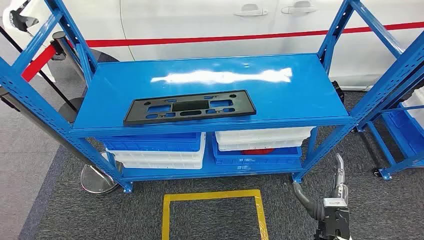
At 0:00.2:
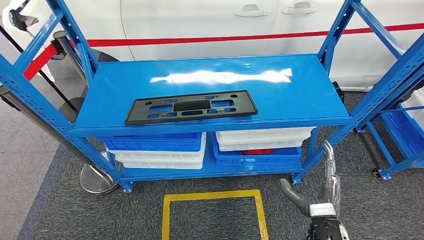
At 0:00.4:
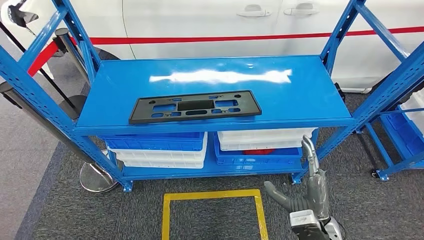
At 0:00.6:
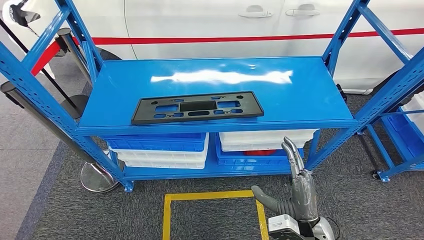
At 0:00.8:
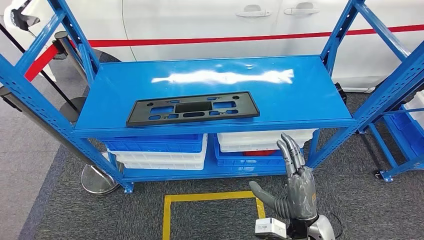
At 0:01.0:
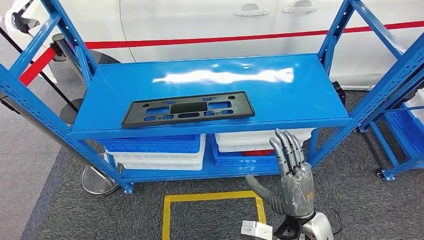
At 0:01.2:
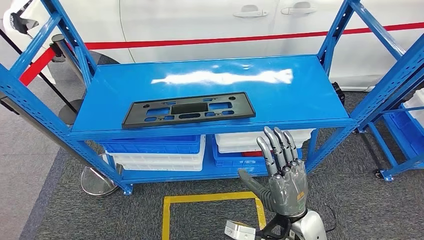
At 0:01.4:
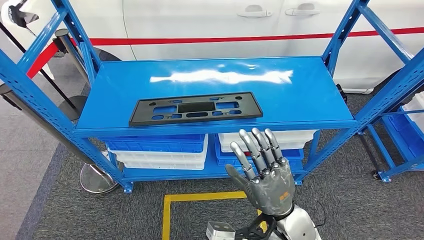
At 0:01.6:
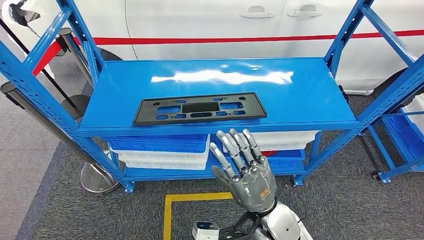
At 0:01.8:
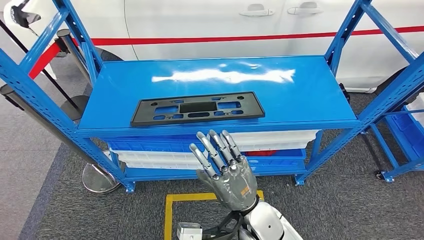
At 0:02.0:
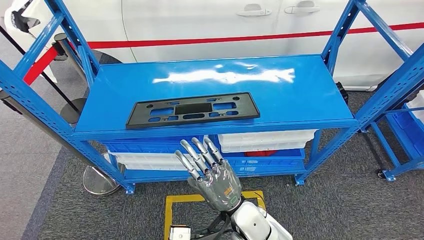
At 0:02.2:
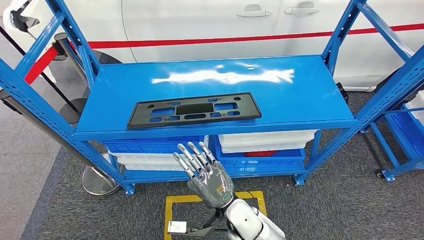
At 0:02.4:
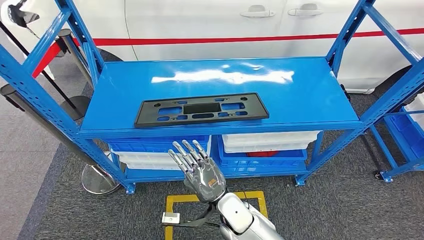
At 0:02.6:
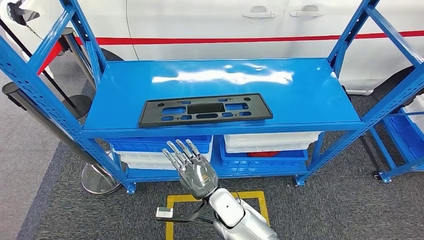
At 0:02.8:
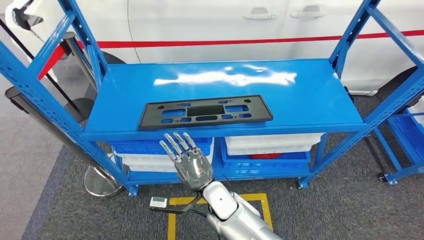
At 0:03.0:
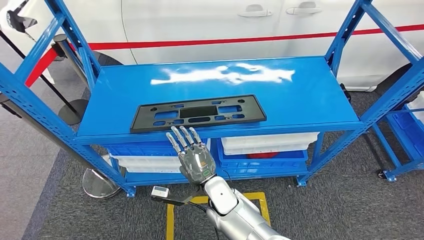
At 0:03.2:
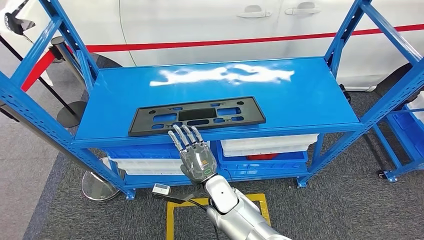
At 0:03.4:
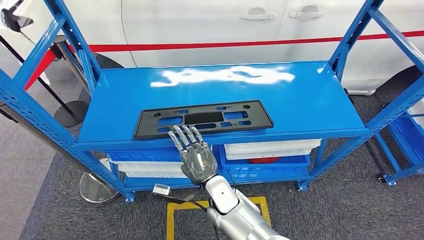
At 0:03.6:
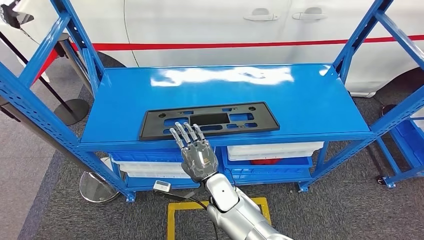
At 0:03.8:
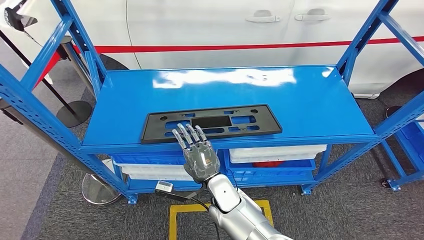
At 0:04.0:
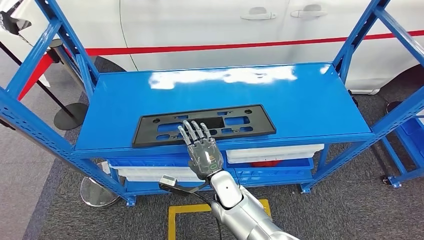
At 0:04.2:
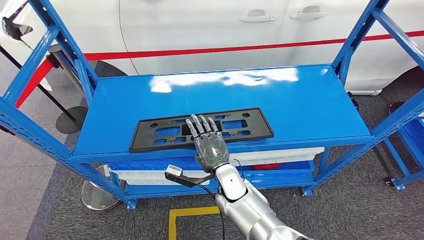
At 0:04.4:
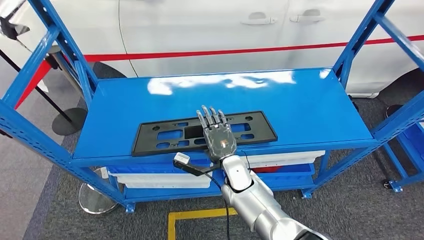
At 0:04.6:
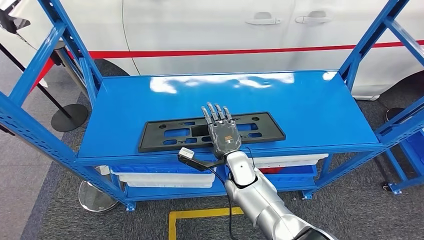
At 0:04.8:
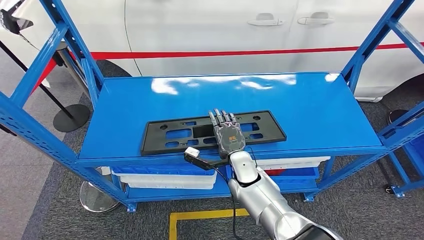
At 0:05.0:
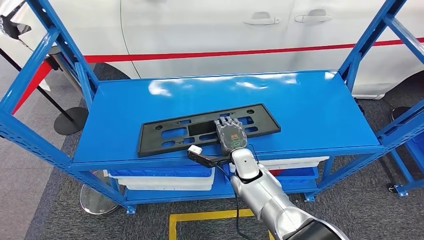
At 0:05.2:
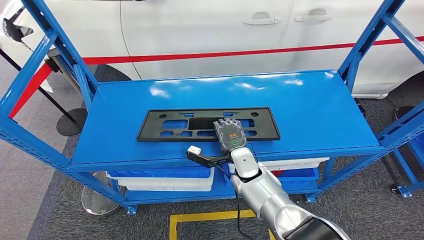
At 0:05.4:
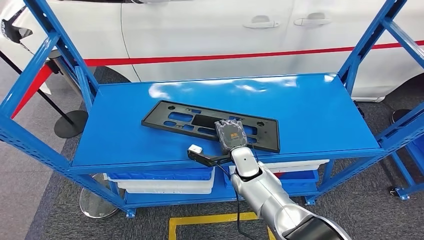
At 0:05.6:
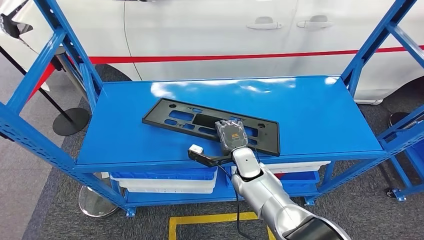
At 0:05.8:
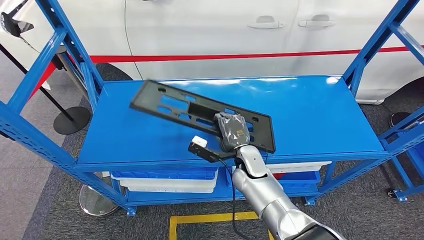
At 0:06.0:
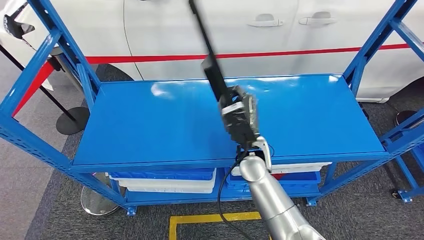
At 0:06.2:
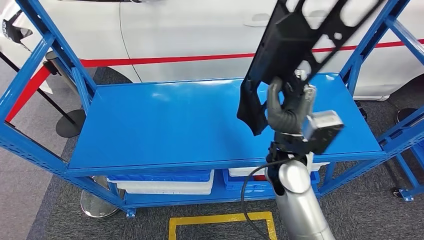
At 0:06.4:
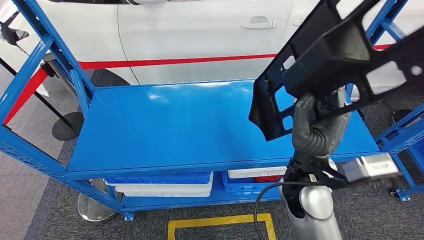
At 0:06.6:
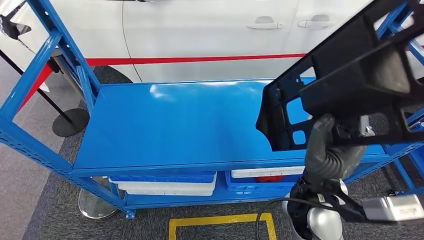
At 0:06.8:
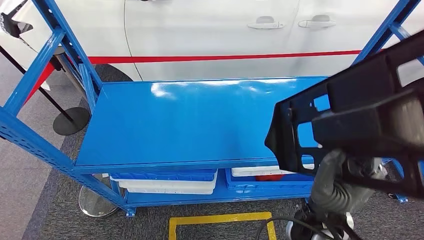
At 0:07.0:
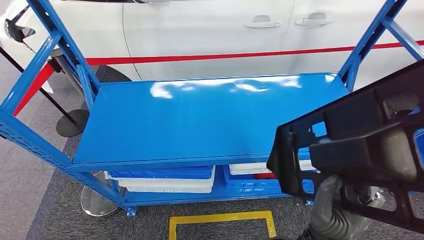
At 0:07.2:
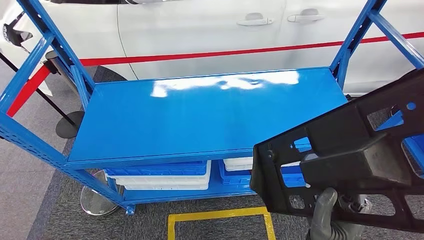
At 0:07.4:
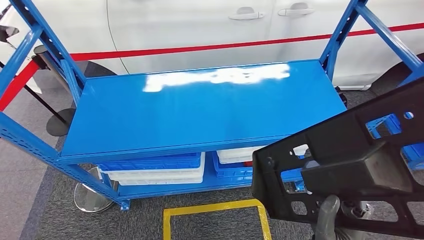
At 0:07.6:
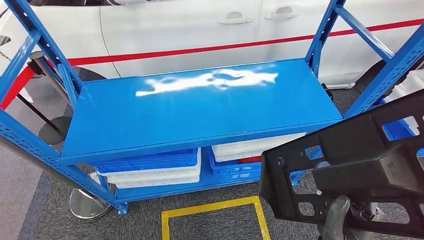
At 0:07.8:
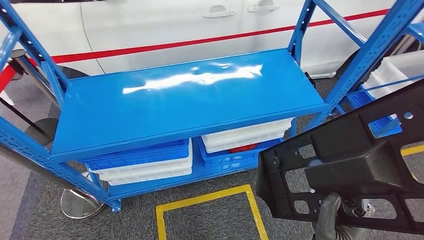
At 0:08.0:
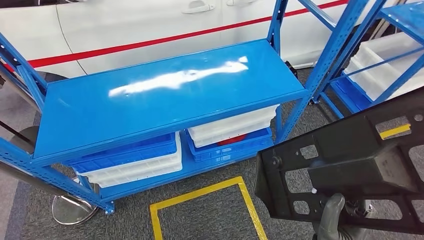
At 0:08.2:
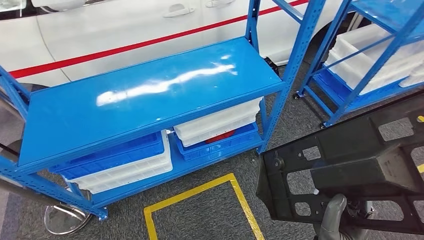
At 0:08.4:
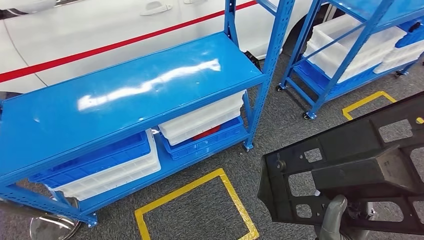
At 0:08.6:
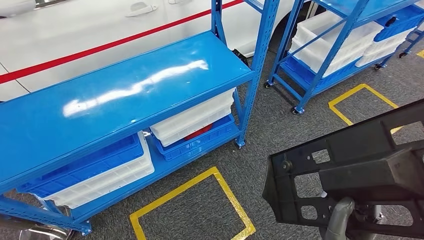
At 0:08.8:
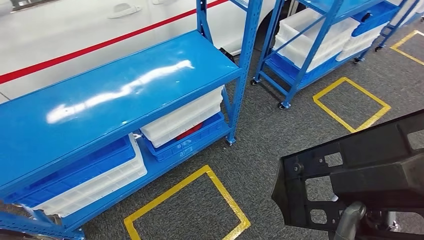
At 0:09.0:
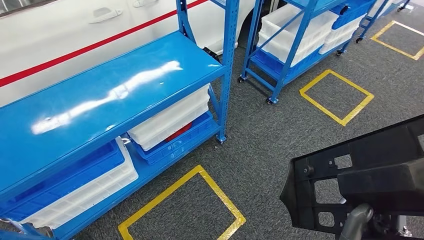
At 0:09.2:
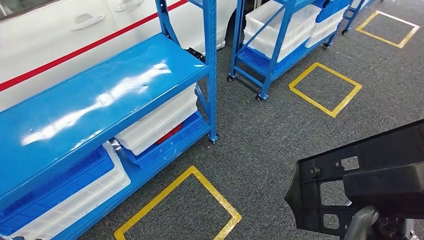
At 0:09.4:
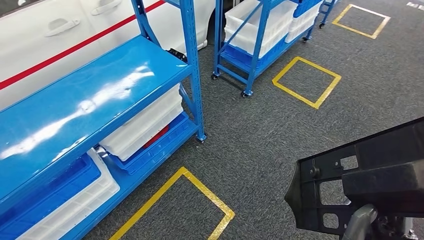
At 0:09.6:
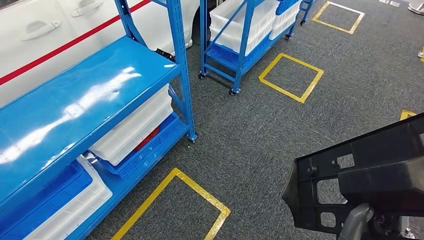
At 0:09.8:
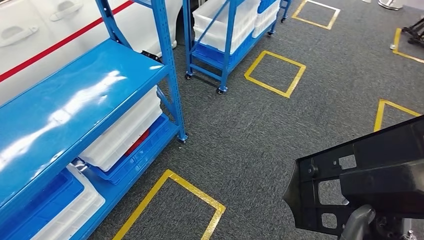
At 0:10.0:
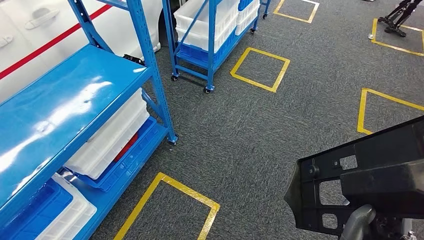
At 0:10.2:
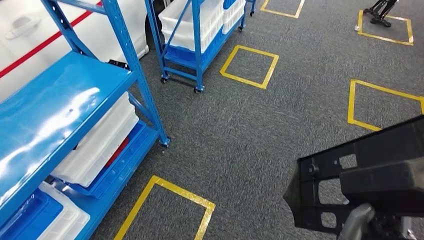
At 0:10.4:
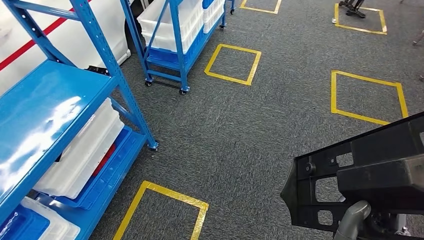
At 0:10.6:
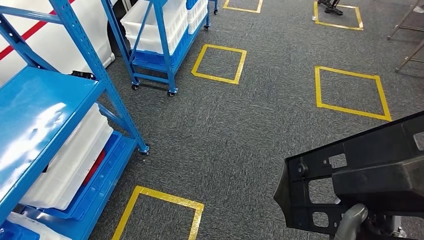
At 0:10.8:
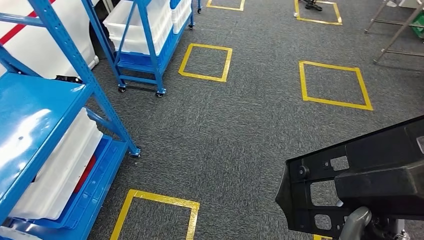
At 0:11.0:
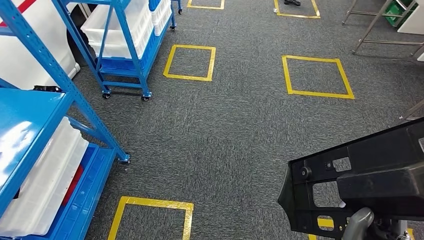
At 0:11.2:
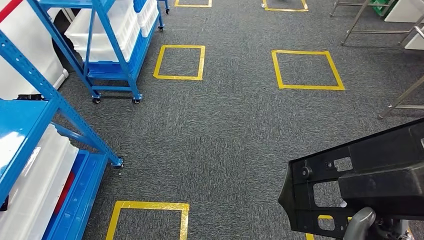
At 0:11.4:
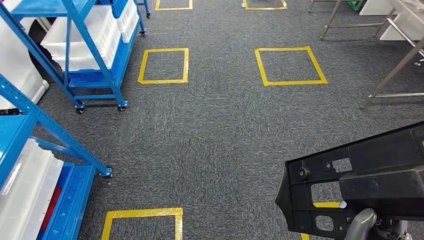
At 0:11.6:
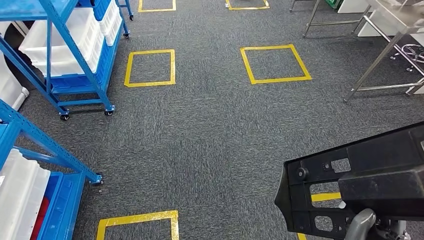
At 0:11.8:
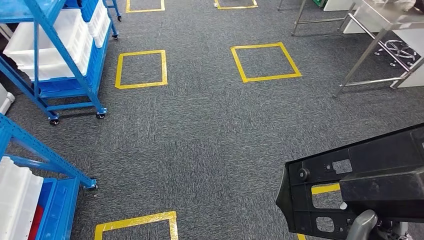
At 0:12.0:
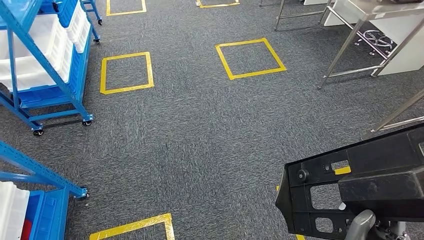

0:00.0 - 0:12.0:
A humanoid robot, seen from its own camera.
Step, 0:00.0 - 0:07.4: Pick up the large material from the shelf.

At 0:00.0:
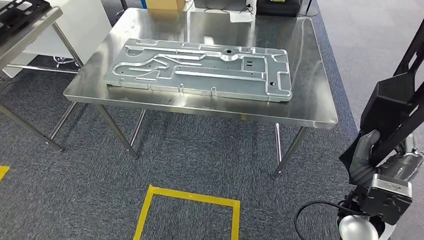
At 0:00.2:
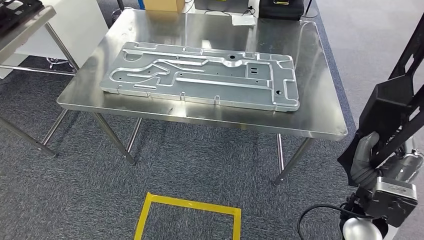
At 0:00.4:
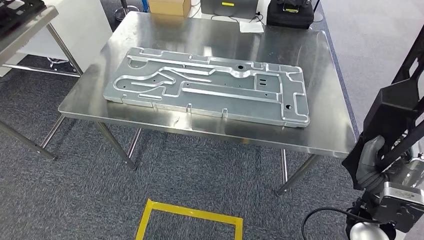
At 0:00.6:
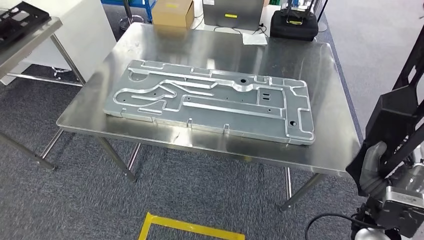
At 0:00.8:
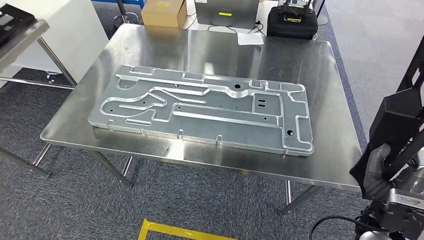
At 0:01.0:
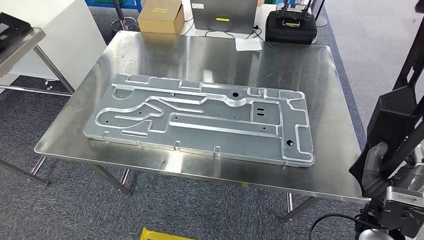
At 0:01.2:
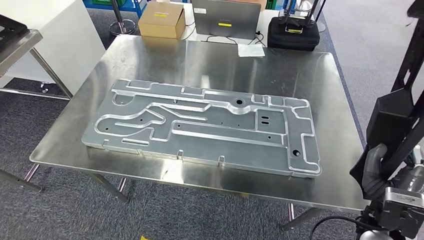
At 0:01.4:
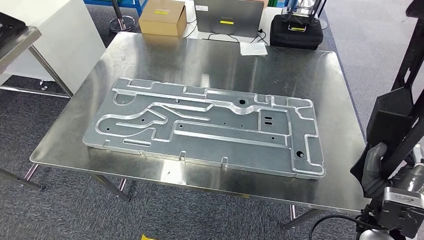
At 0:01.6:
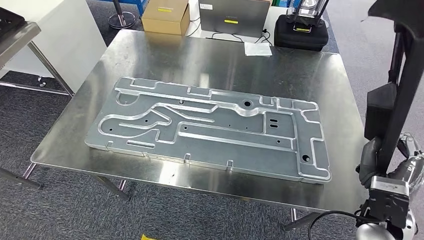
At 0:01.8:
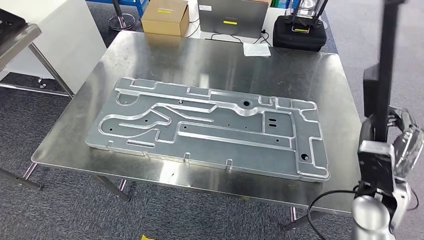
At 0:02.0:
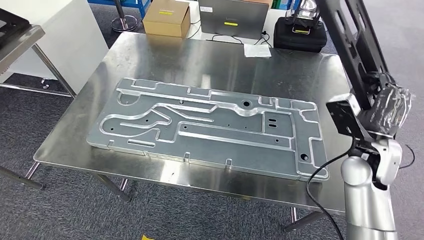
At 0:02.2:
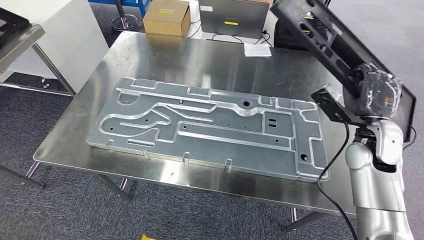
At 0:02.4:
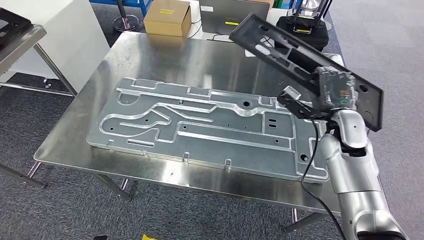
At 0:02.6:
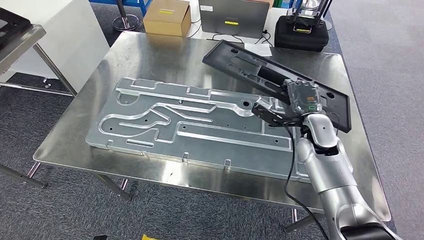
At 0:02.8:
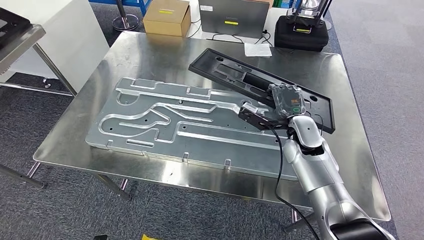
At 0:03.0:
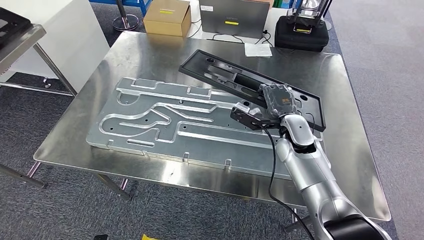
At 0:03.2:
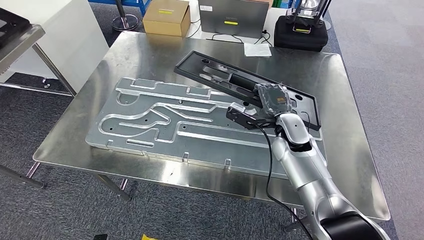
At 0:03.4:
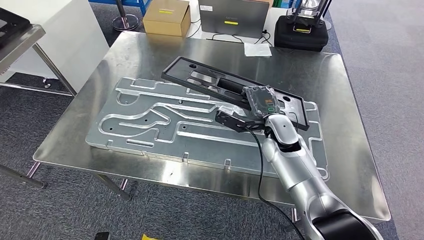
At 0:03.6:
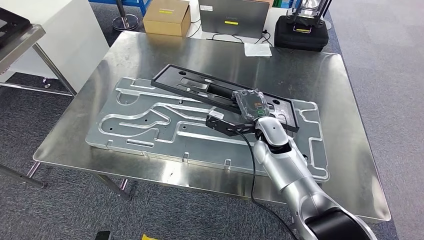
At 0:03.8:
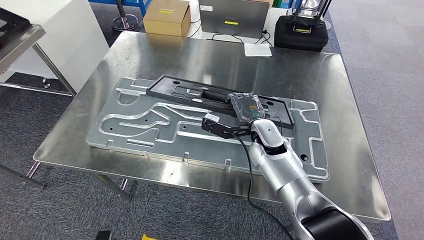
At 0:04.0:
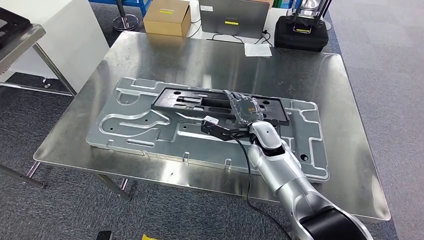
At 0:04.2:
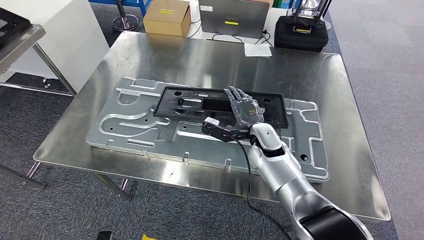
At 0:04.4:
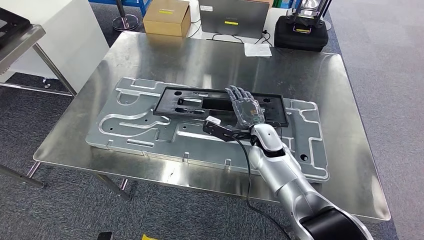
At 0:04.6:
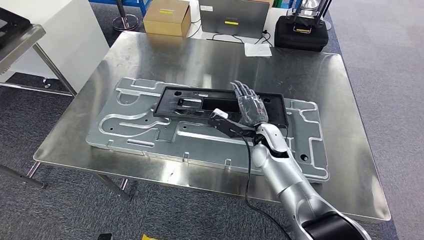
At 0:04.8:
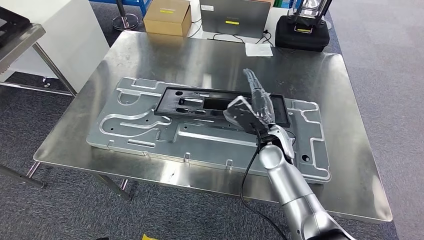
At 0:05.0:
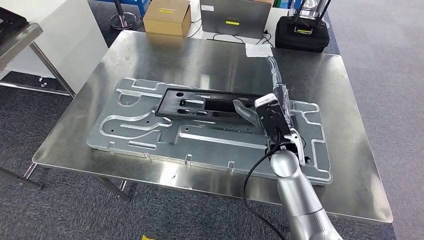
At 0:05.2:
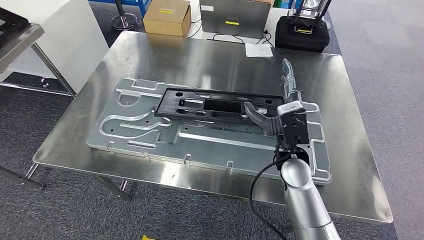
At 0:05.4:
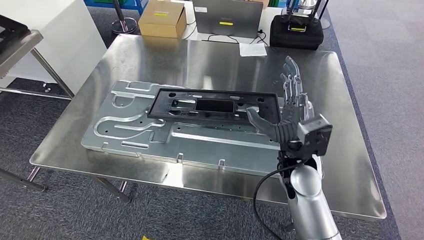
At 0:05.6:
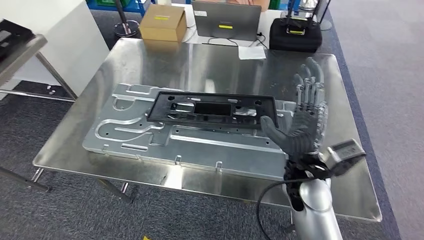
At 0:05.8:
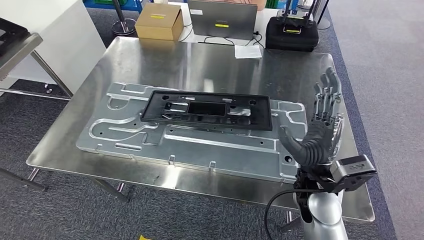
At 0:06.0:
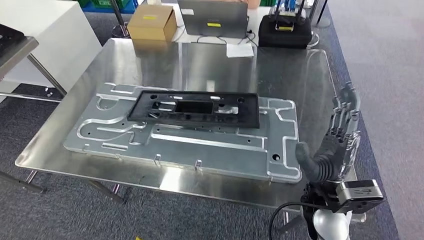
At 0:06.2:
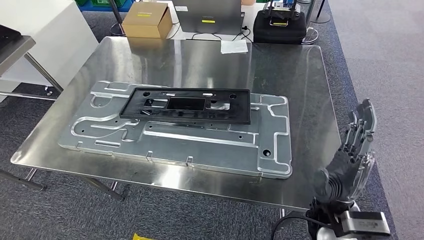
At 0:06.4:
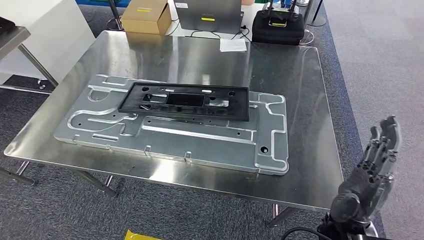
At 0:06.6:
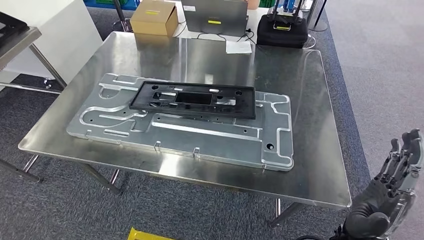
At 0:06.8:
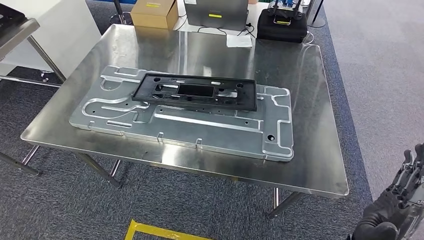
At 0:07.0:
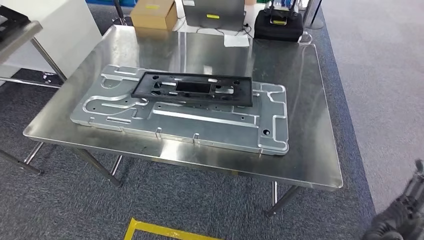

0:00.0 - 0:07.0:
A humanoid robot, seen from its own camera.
Step, 0:00.0 - 0:02.0: Move the large material to the workbench.
Step, 0:02.2 - 0:06.2: Insert the large material into the corresponding slot on the workbench.
0:02.8 - 0:04.2: The right hand travels to the left by about 10 cm.
